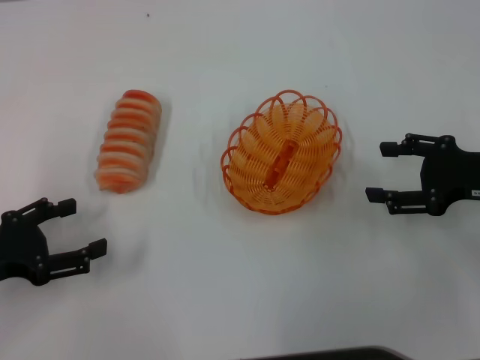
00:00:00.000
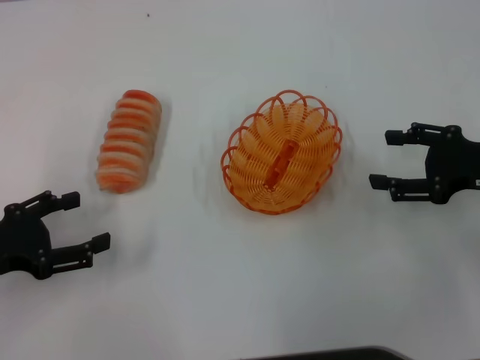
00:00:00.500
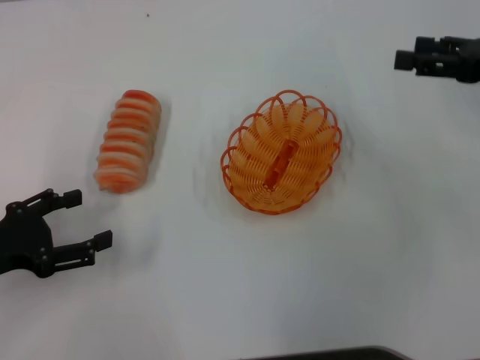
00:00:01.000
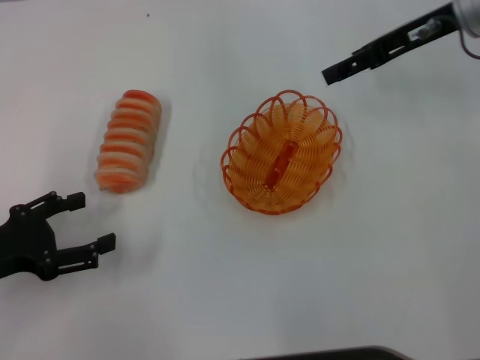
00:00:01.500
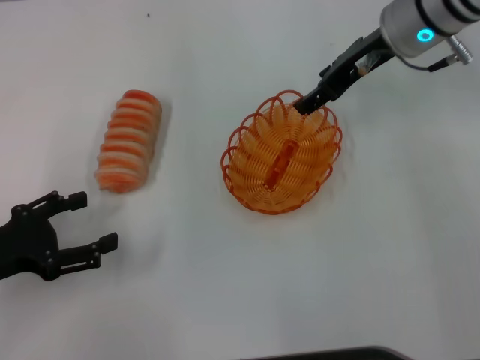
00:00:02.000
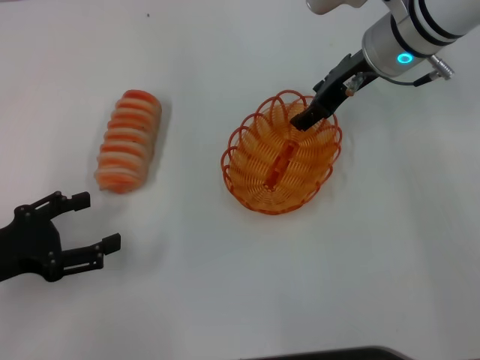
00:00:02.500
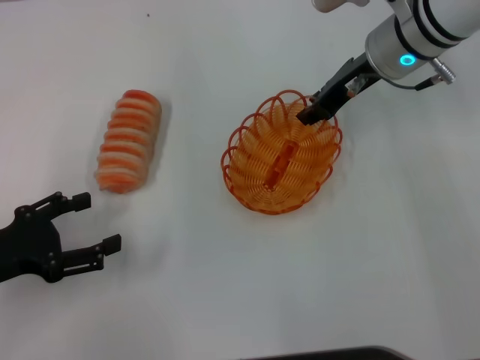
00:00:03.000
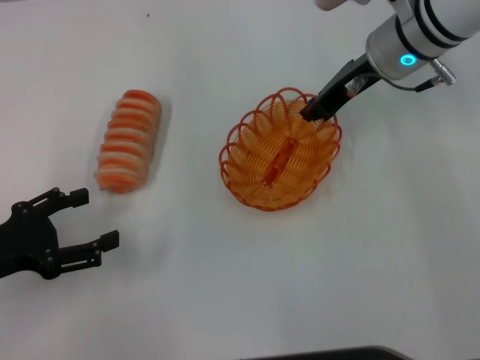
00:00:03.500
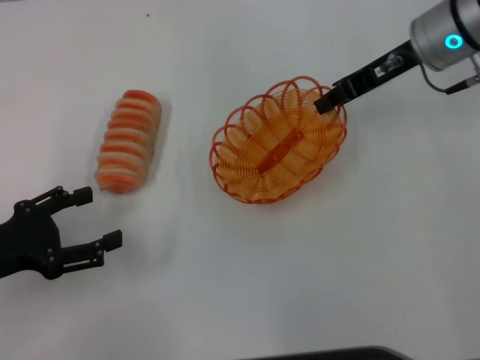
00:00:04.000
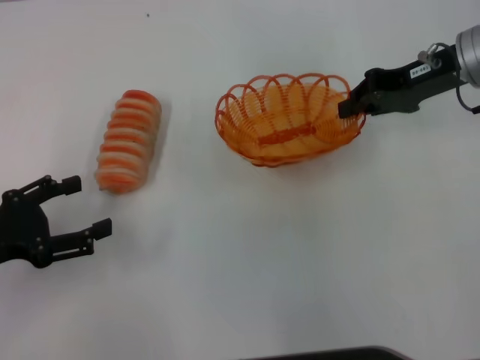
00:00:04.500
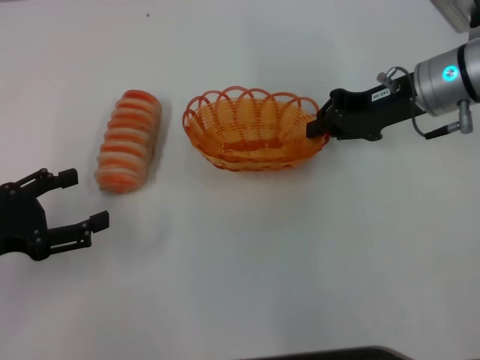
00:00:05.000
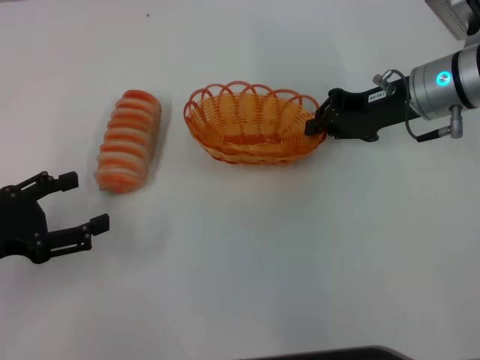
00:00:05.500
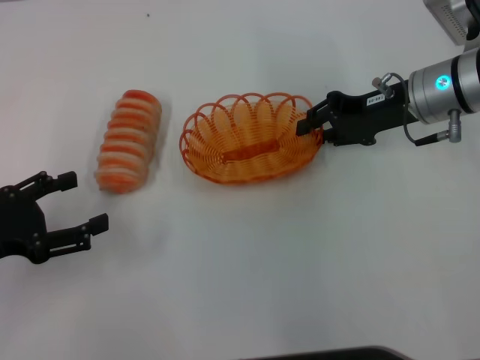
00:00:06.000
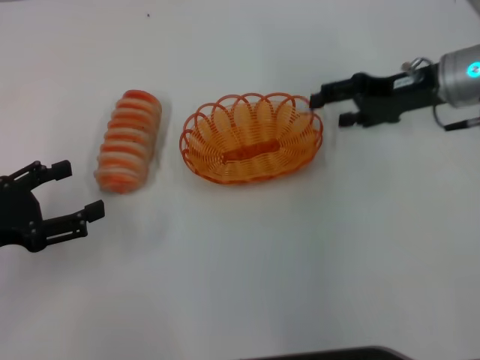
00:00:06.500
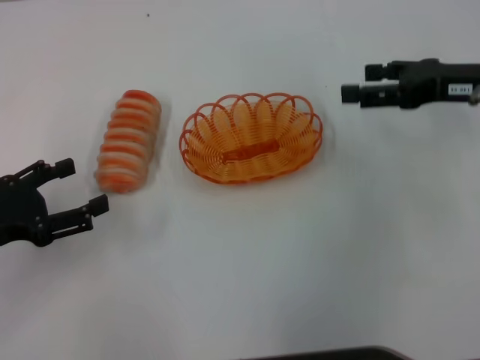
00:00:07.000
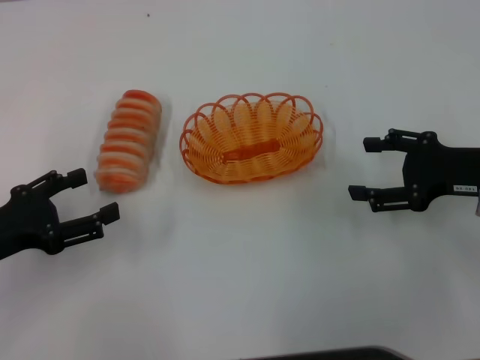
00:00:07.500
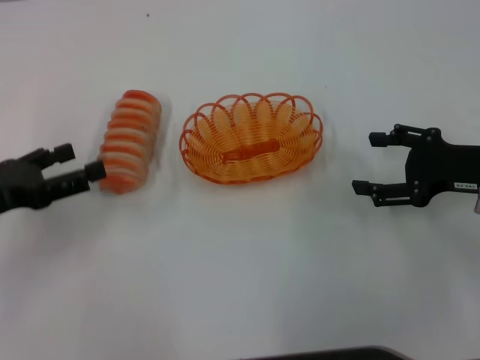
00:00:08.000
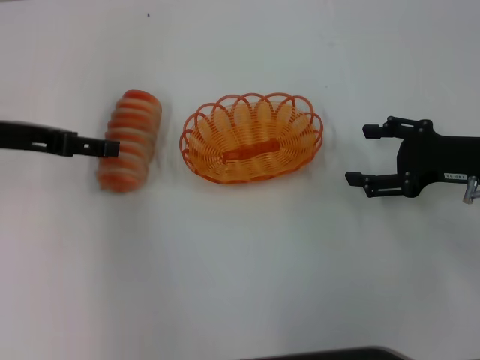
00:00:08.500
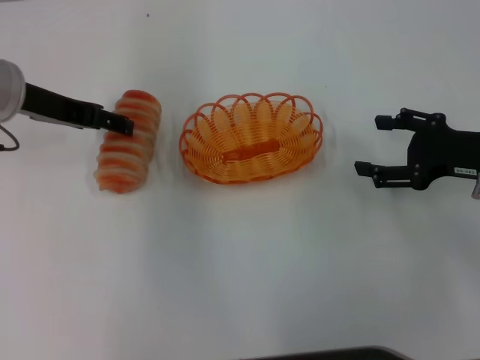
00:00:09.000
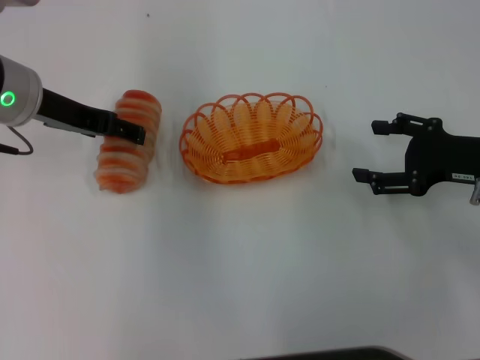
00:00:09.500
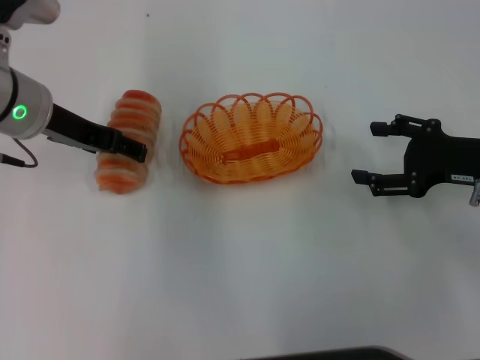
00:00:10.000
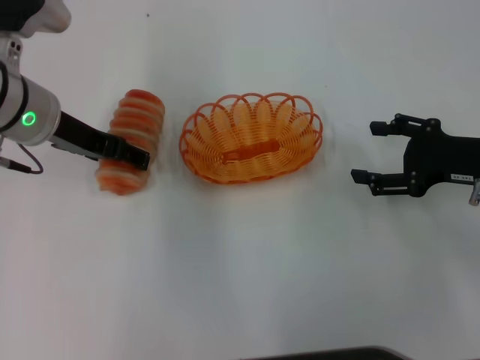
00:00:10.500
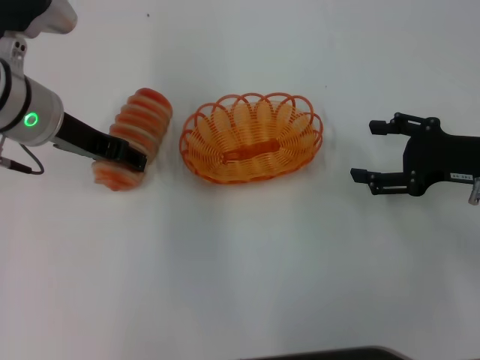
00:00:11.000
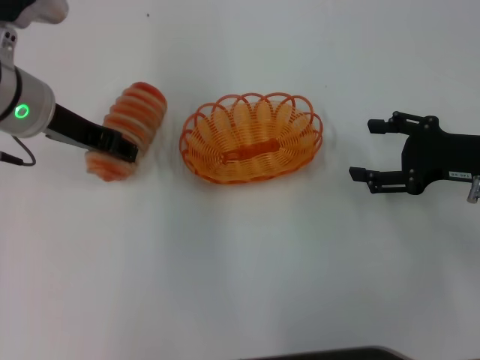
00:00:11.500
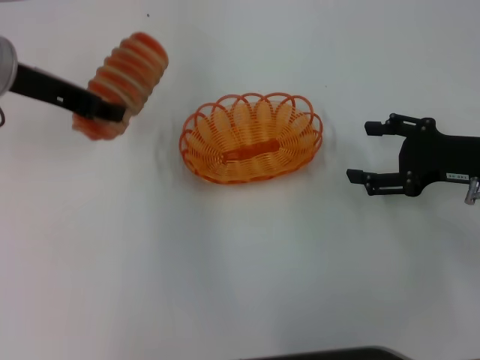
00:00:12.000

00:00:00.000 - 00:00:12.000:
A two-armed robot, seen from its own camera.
Step, 00:00:00.000 - 00:00:04.000: Pick up the basket with the right gripper.
Step, 00:00:04.500 - 00:00:06.500: Place the basket in the center of view with the right gripper.
Step, 00:00:07.000 - 00:00:11.500: Pick up the long bread with the left gripper.
00:00:00.000 - 00:00:02.000: The right gripper travels forward, to the left and upward by about 20 cm.
00:00:02.000 - 00:00:04.000: The right gripper closes.
00:00:04.000 - 00:00:06.000: The right gripper travels downward by roughly 5 cm.
00:00:06.000 - 00:00:08.000: The right gripper is displaced backward and to the right by some 15 cm, and opens up.
00:00:08.000 - 00:00:10.000: The left gripper heads to the right, forward and upward, covering some 15 cm.
00:00:10.000 - 00:00:12.000: The left gripper closes its fingers.

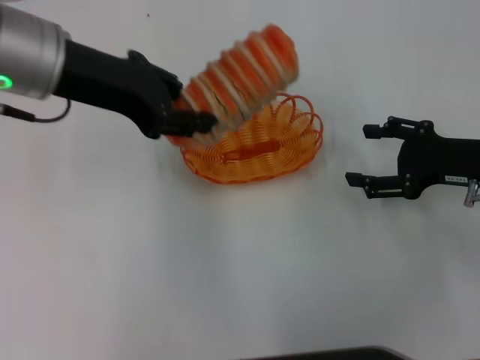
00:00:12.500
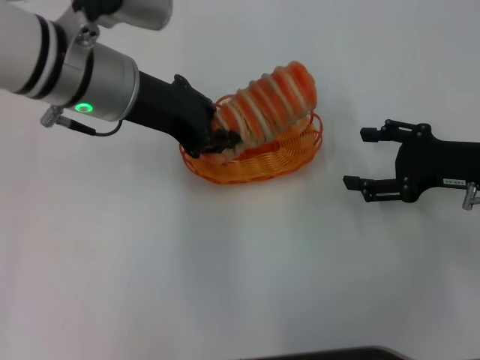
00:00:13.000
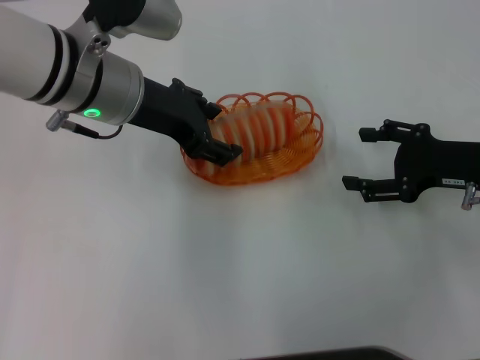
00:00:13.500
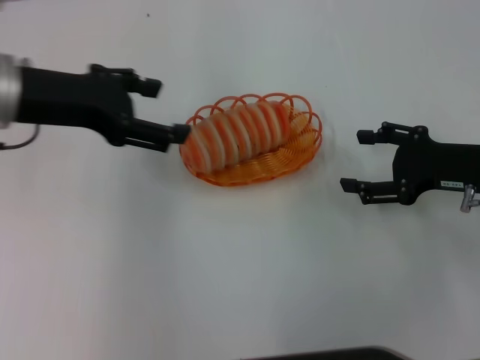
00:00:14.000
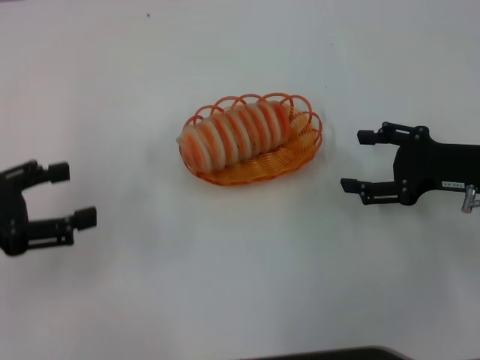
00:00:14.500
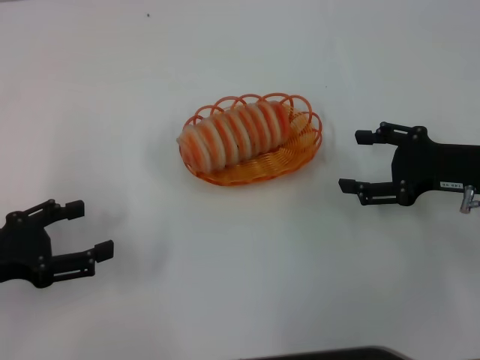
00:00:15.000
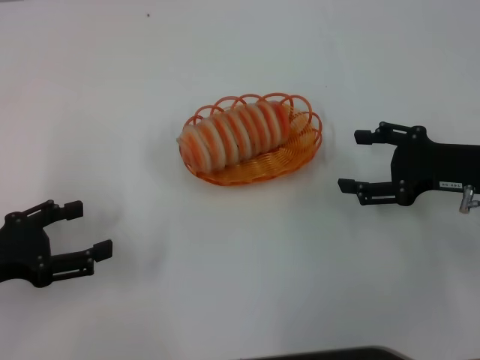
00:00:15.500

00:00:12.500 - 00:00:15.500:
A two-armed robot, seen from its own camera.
Step, 00:00:12.500 - 00:00:14.000: Place the long bread into the basket with the left gripper.
00:00:12.500 - 00:00:14.000: The left gripper opens.
00:00:14.000 - 00:00:15.500: The left gripper is displaced downward, backward and to the left by about 20 cm.

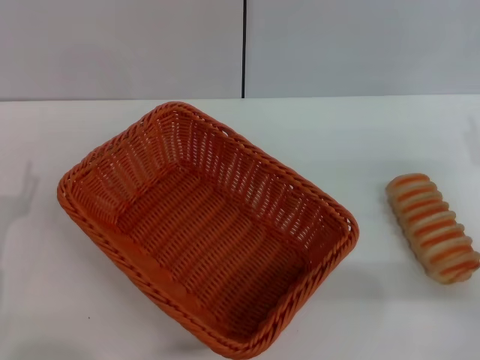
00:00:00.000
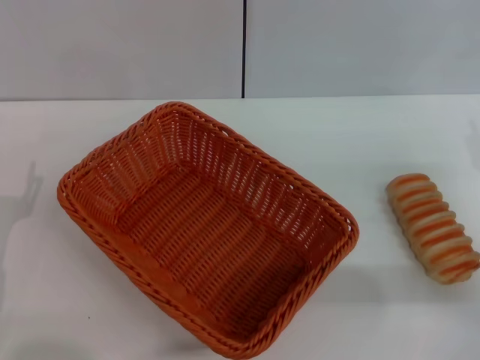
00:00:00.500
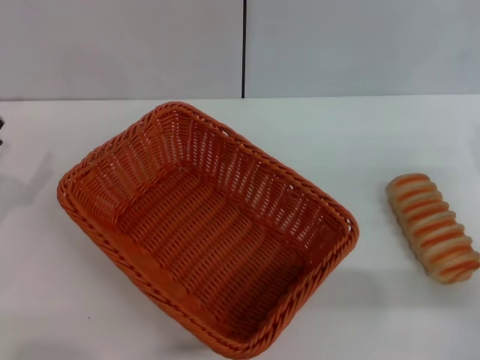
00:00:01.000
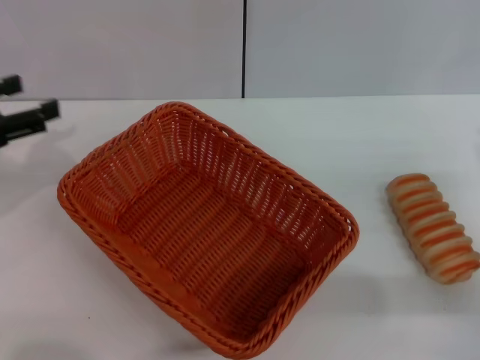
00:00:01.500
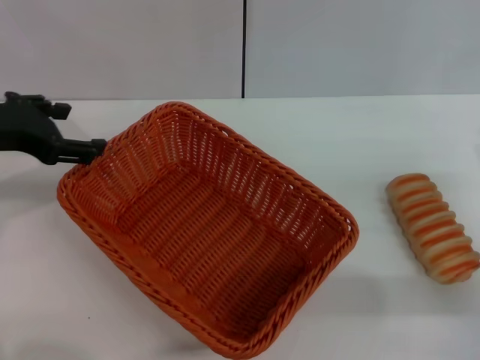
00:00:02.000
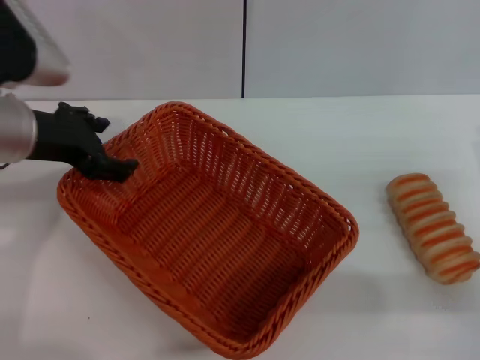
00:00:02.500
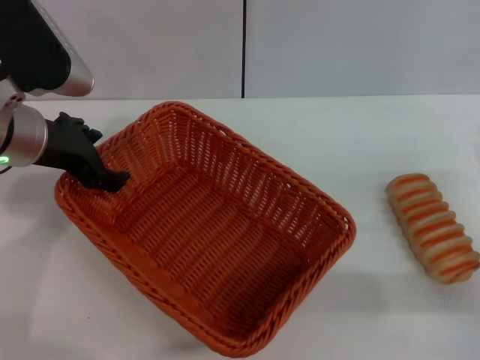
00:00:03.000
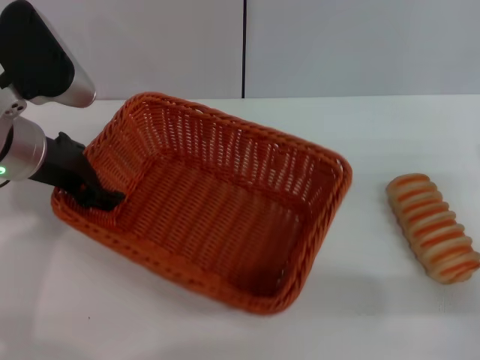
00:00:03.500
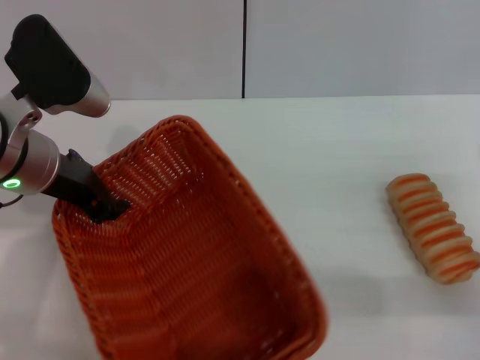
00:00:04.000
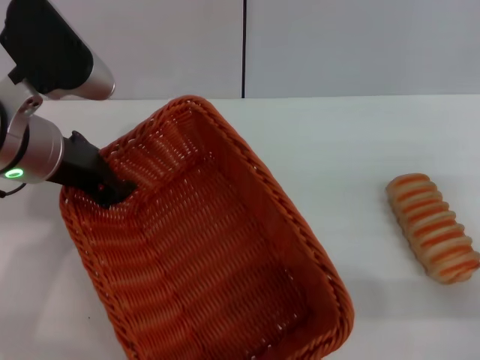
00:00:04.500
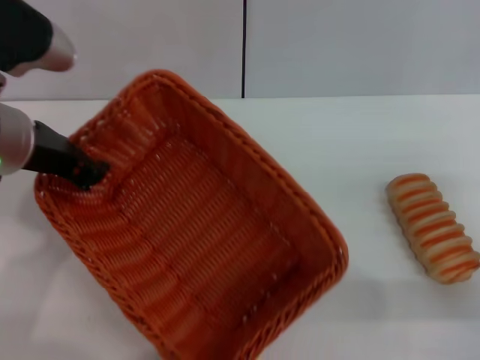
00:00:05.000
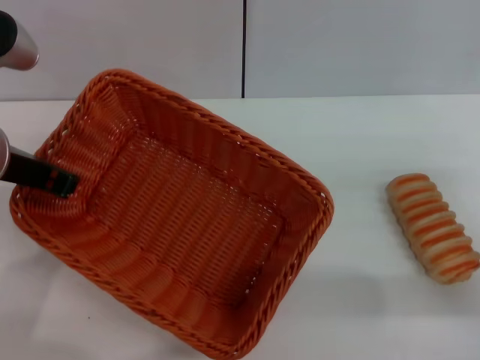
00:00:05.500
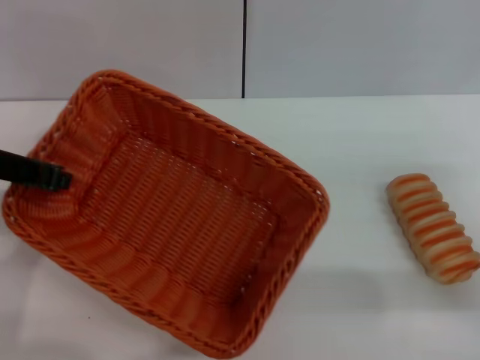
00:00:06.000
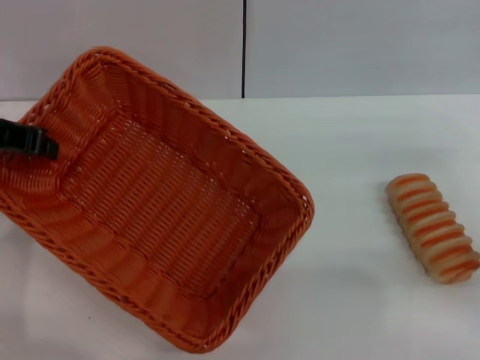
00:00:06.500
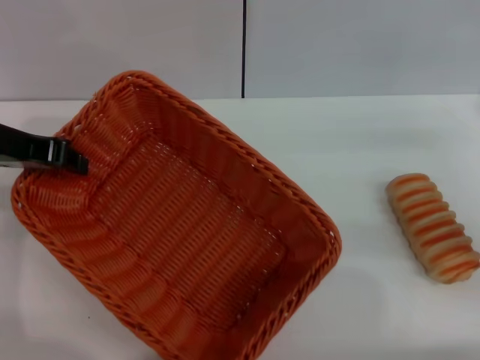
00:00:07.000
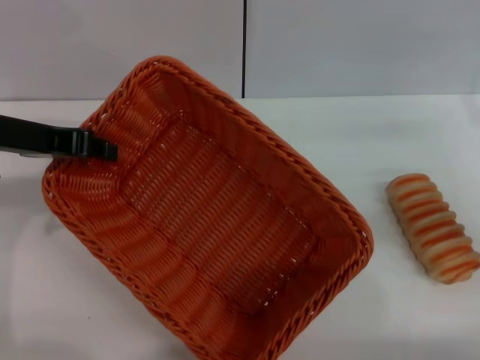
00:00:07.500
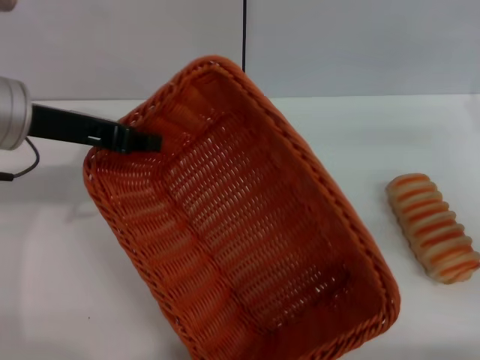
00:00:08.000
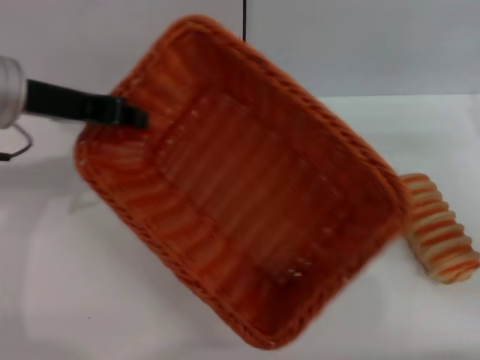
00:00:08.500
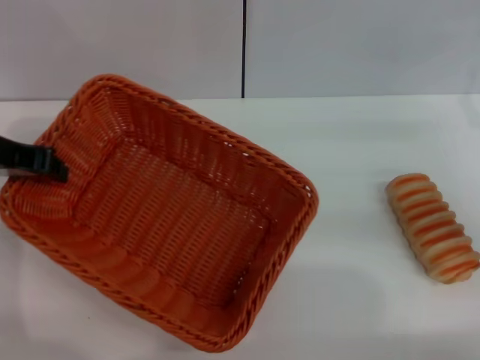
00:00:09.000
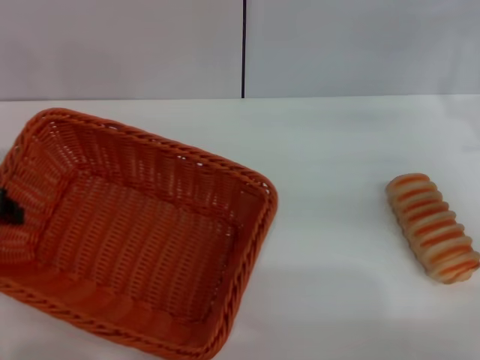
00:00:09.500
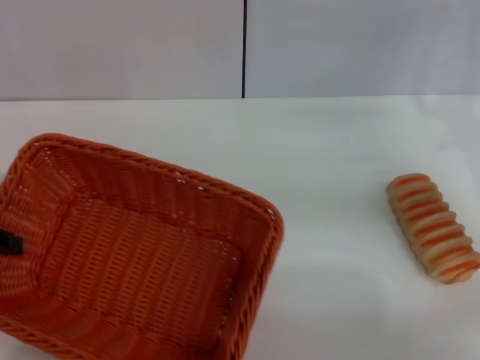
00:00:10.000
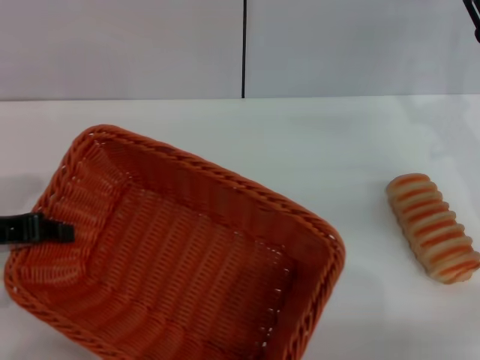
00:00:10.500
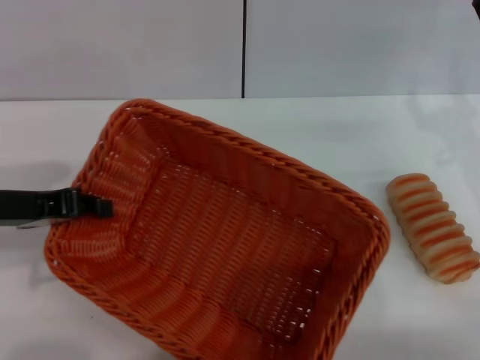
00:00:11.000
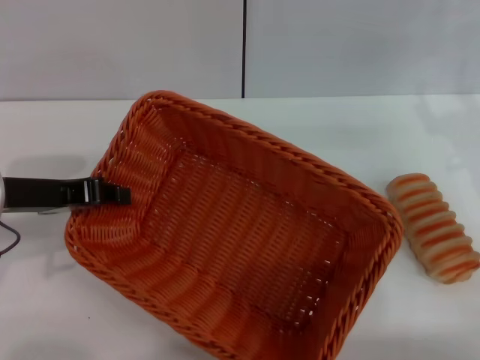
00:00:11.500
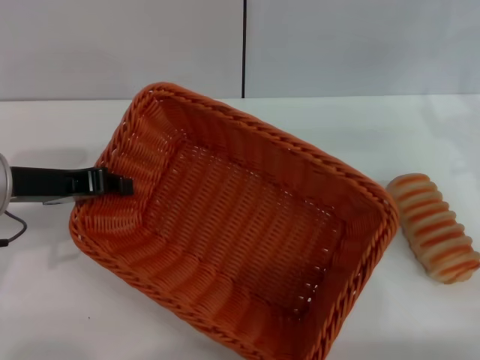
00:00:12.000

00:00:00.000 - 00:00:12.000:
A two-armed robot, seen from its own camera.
Step, 00:00:00.000 - 00:00:05.000: Pick up the light basket with the left gripper.
00:00:00.000 - 00:00:02.000: The left gripper heads upward and forward, covering roughly 20 cm.
00:00:02.000 - 00:00:04.000: The left gripper moves to the right, about 10 cm, and closes up.
00:00:04.000 - 00:00:06.000: The left gripper changes place by about 5 cm, and closes.
00:00:06.000 - 00:00:08.000: The right gripper is displaced forward by some 5 cm.
00:00:08.000 - 00:00:10.000: The left gripper is displaced to the left and backward by about 15 cm; the right gripper moves approximately 5 cm.
00:00:10.000 - 00:00:12.000: The left gripper heads to the right, covering roughly 5 cm.
